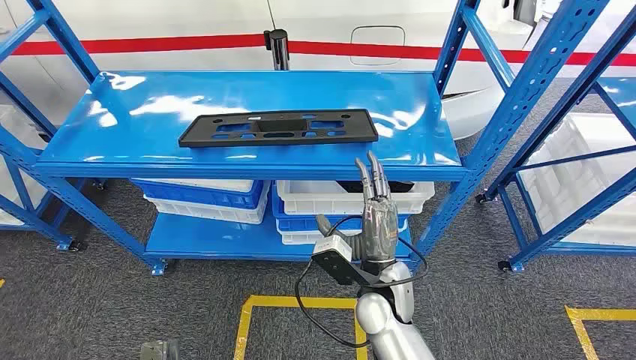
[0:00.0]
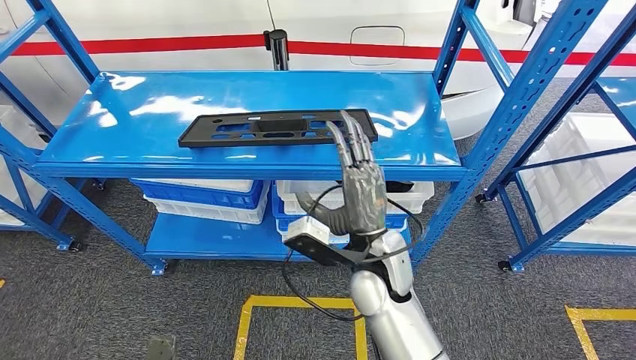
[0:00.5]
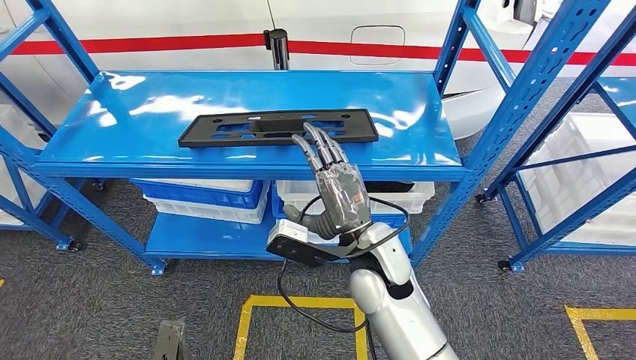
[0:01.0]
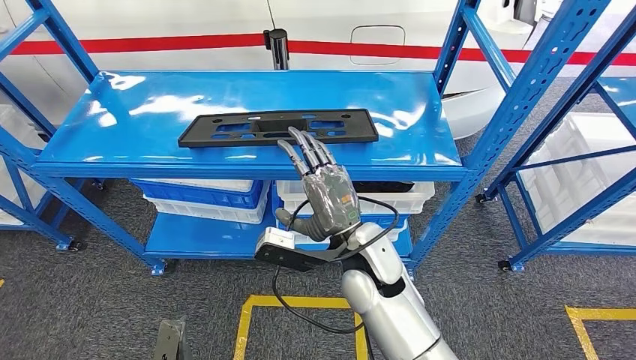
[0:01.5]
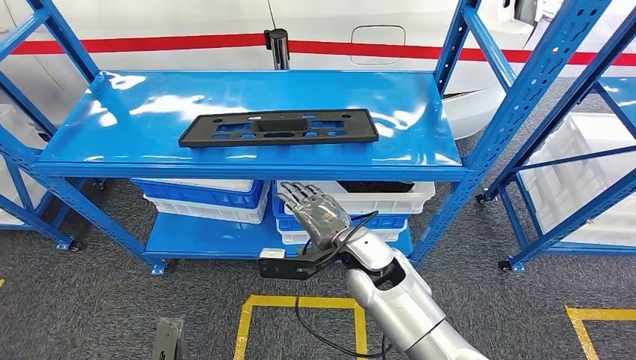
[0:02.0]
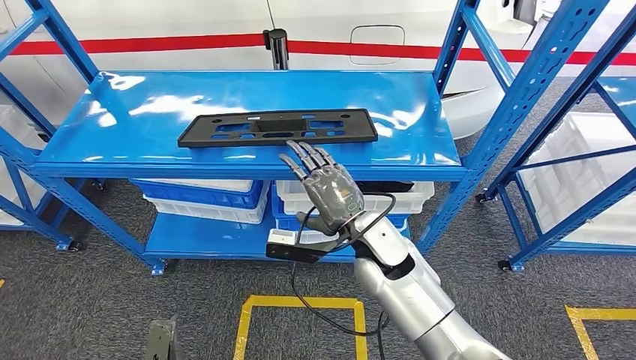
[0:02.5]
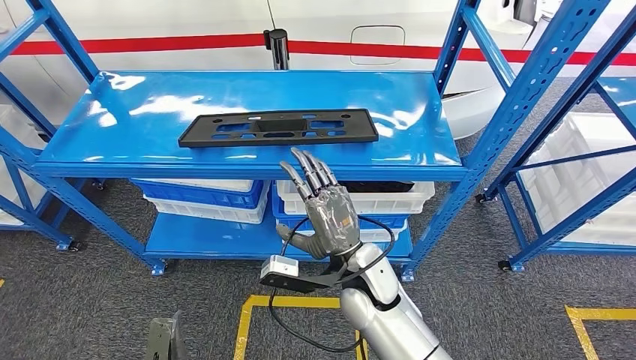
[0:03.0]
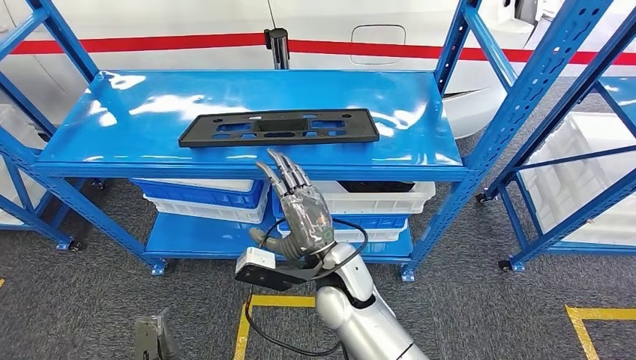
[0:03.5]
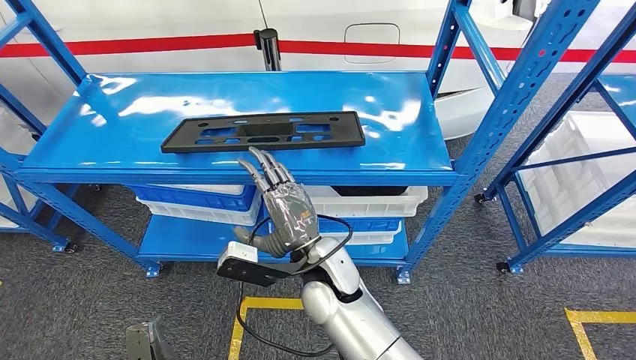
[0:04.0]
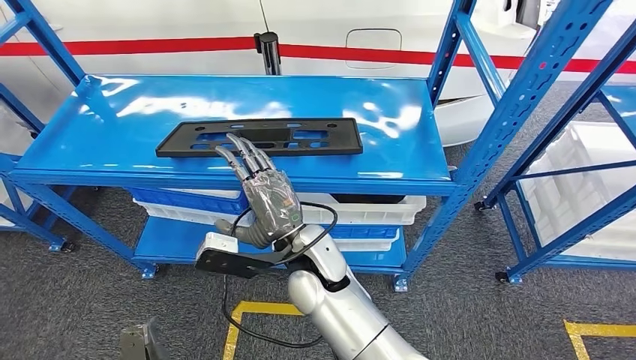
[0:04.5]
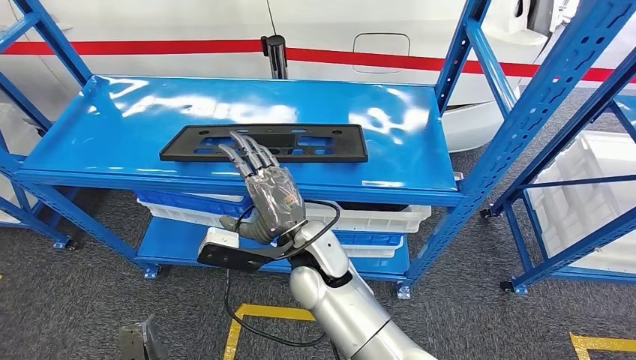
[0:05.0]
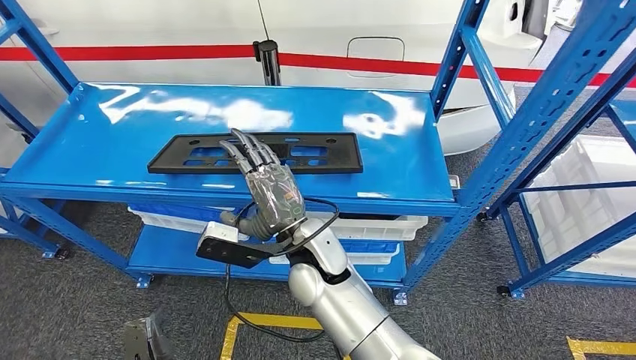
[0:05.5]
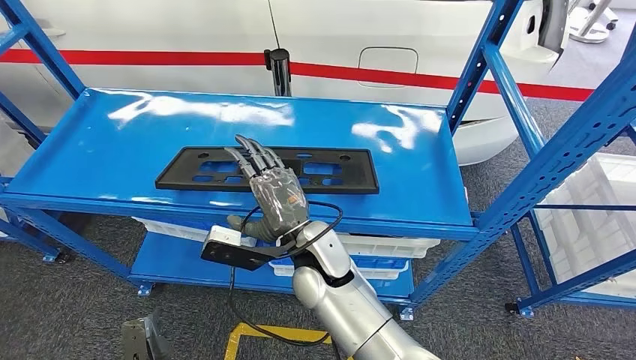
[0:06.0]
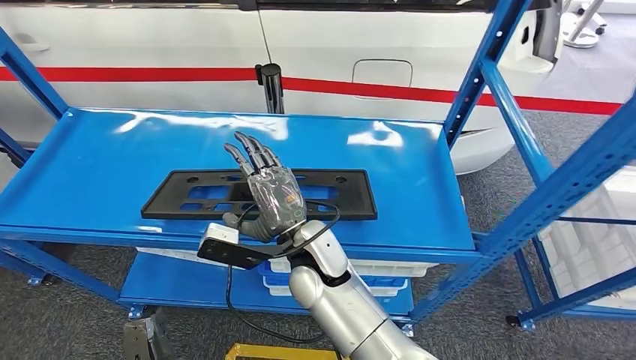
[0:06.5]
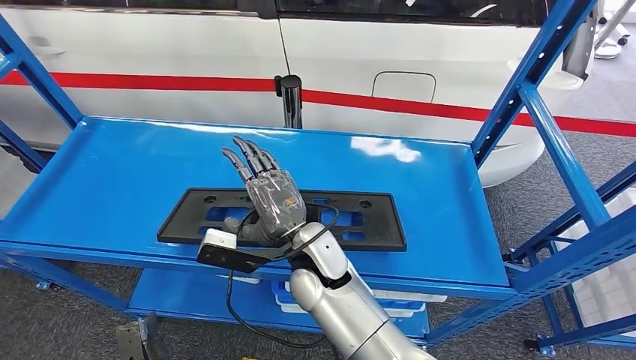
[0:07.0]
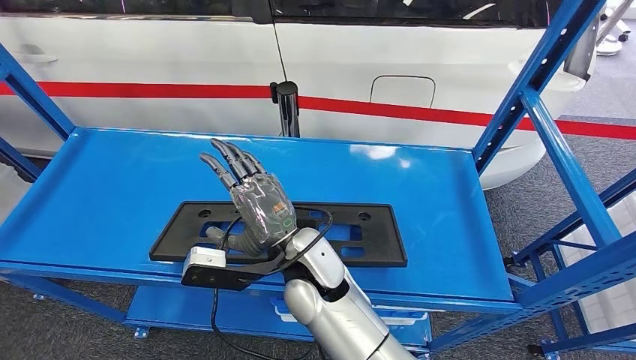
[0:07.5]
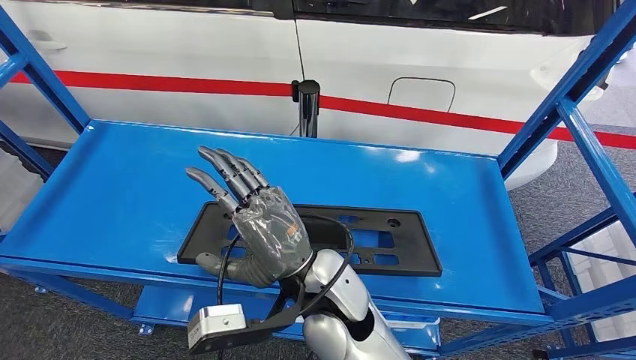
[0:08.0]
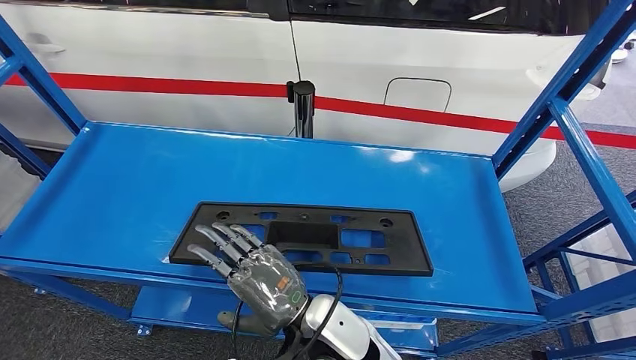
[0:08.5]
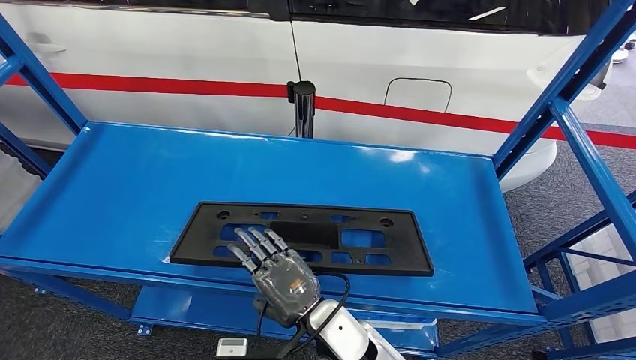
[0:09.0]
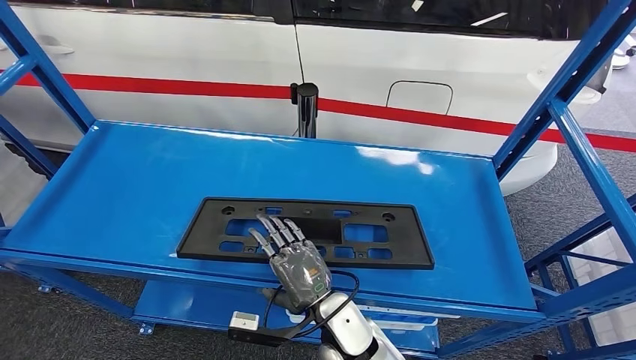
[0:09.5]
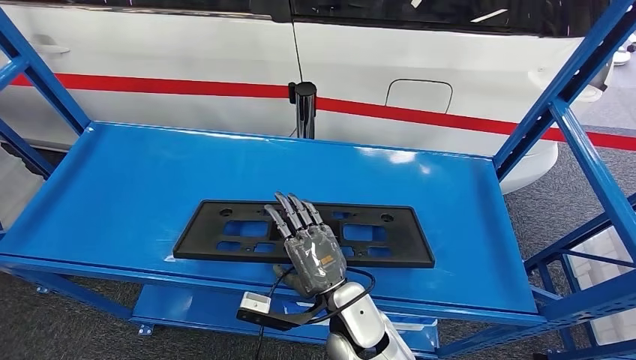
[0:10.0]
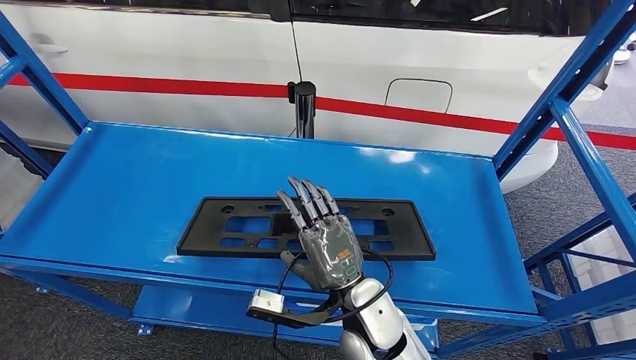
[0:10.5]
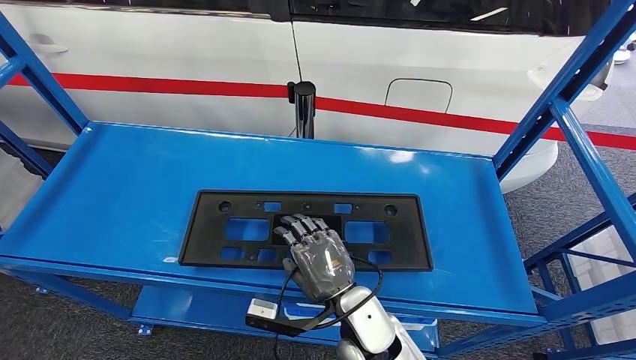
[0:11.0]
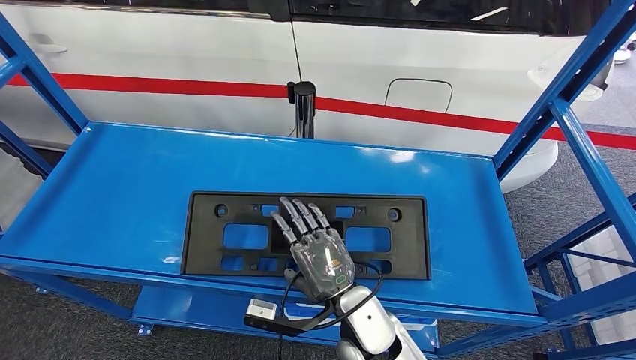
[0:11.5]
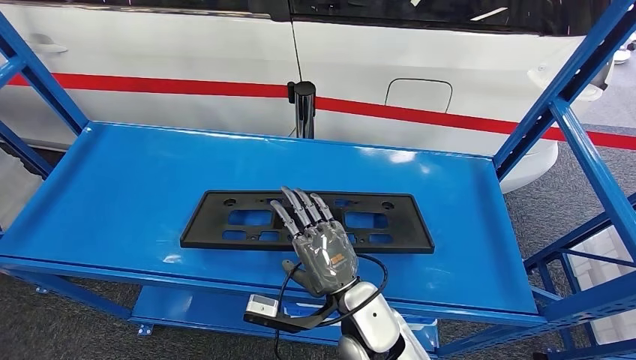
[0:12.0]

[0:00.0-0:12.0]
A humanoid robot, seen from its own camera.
0:10.0 to 0:12.0: The hands move only a little.

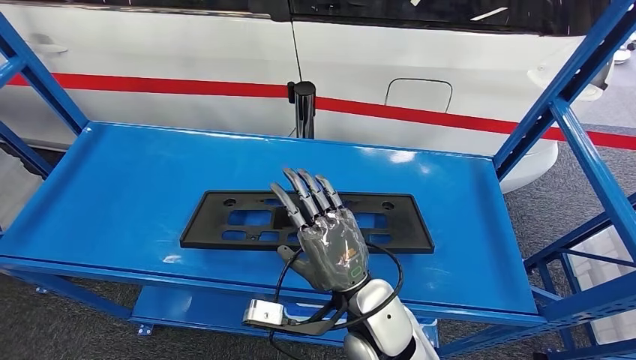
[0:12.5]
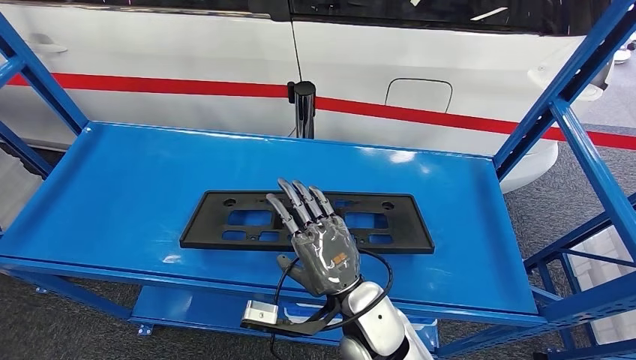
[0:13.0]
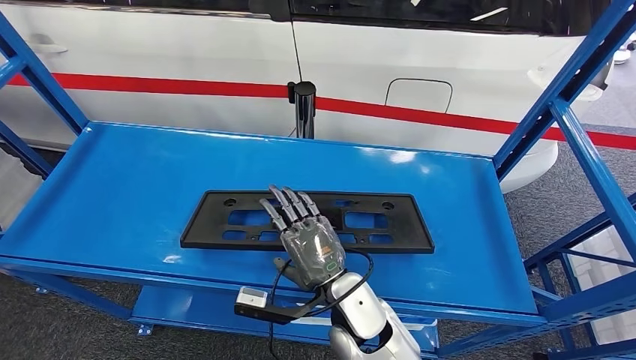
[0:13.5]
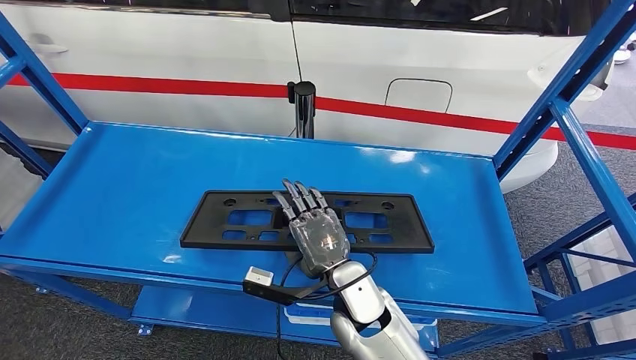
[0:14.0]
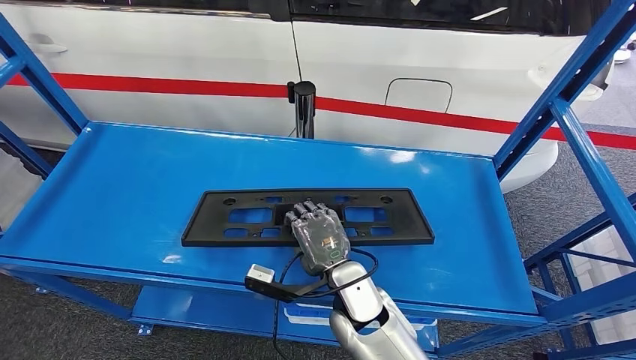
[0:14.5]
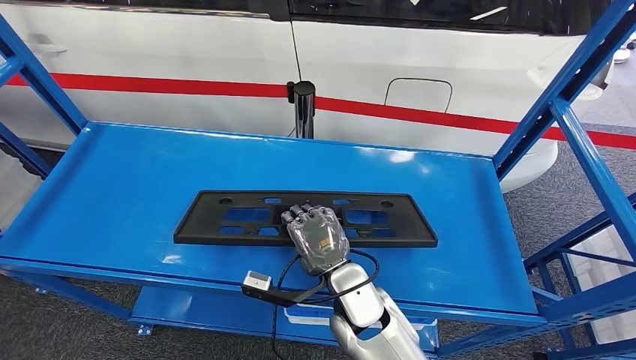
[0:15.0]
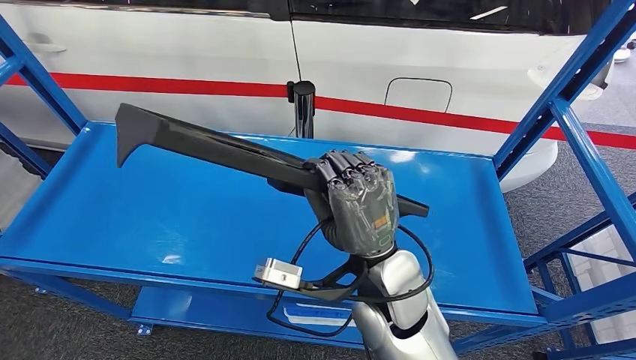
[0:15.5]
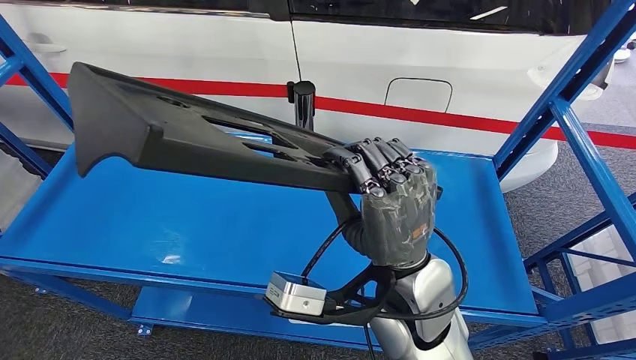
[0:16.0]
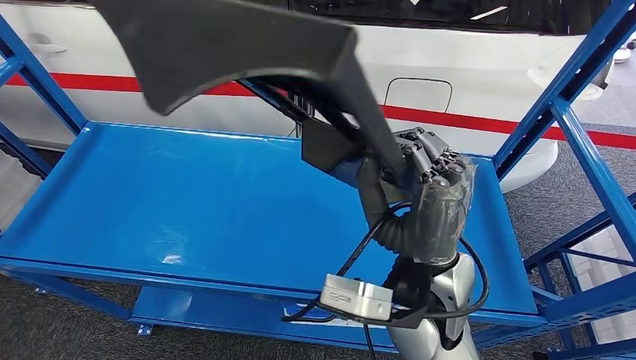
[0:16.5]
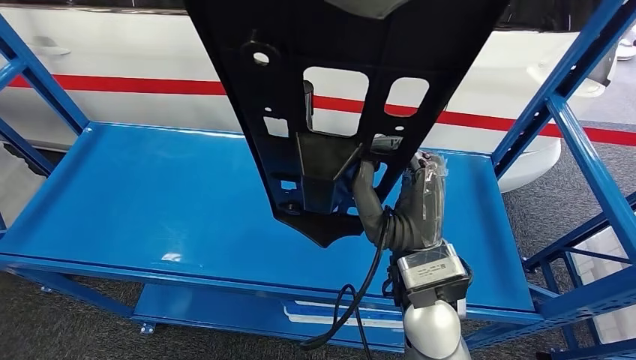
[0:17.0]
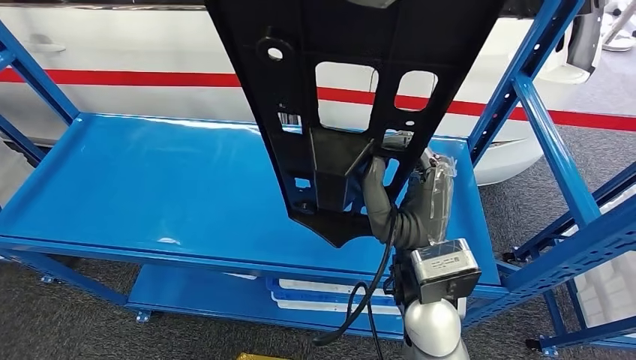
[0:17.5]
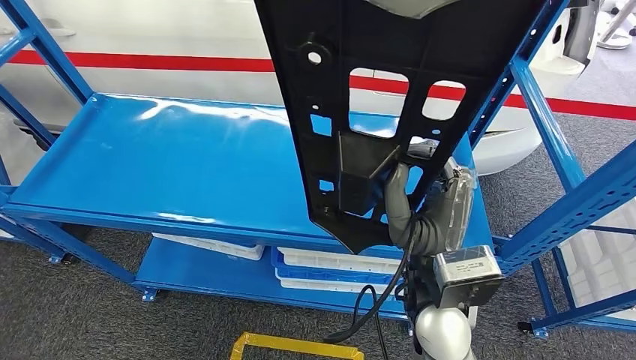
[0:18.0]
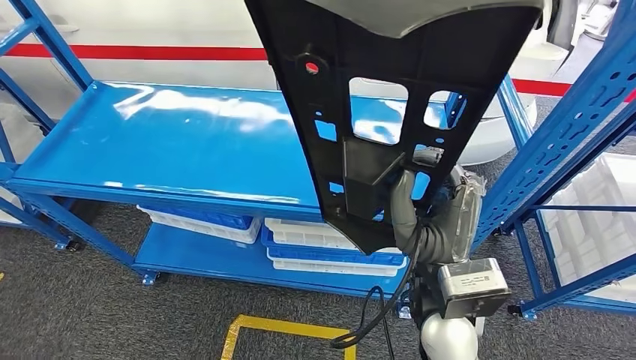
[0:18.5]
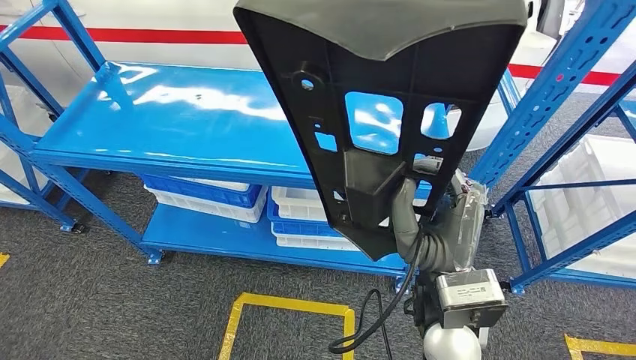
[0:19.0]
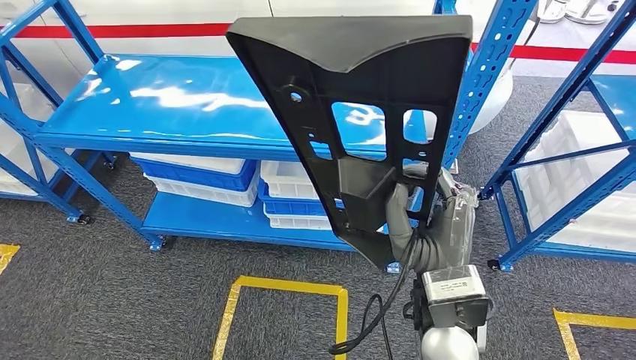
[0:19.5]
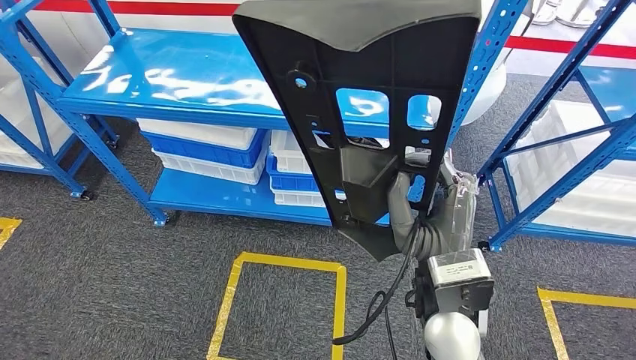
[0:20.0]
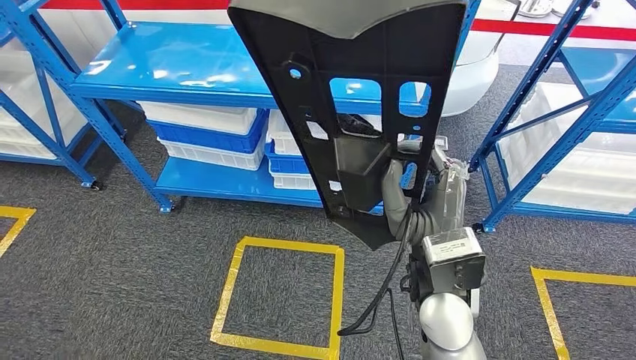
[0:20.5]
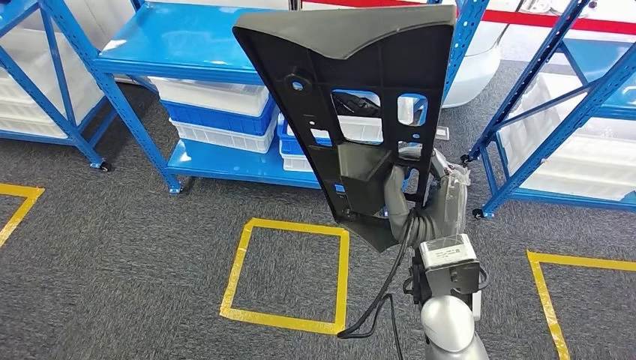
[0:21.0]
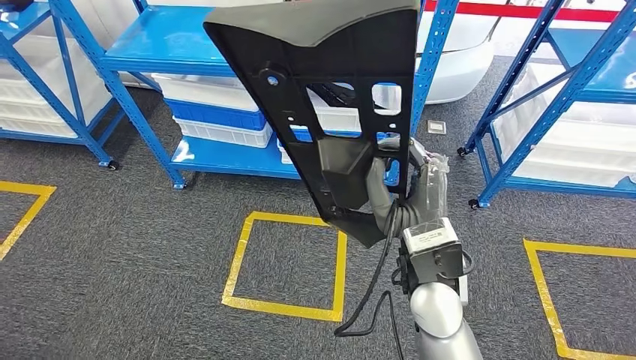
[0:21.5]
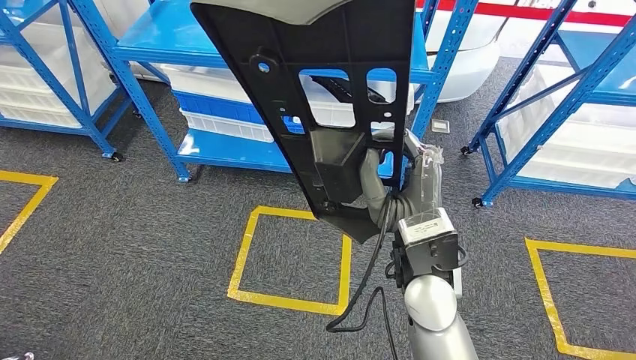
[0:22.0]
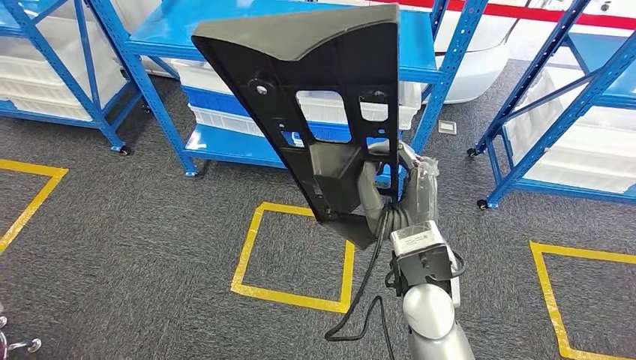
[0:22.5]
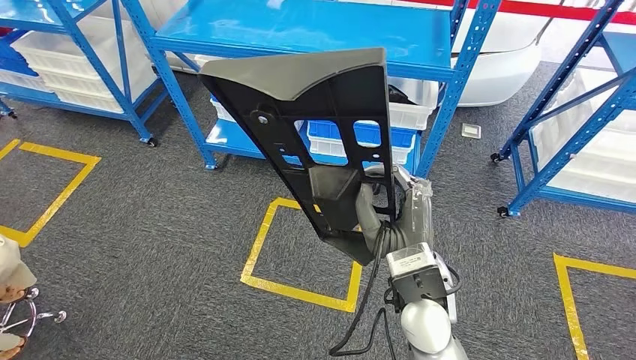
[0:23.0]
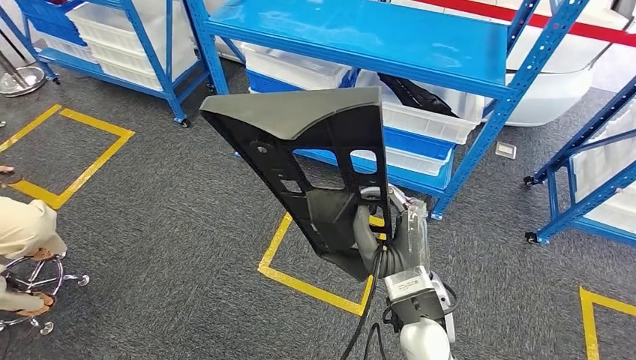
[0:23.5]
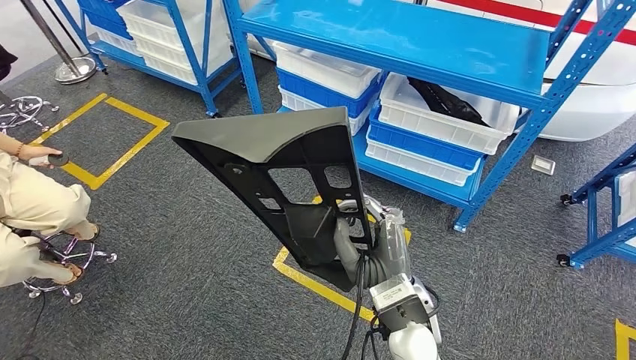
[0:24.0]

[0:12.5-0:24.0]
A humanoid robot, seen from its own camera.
Step, 0:12.5 to 0:19.5: Pick up the large material from the shelf.
0:12.5 to 0:14.5: The right hand shifts roughly 10 cm downward and forward.
